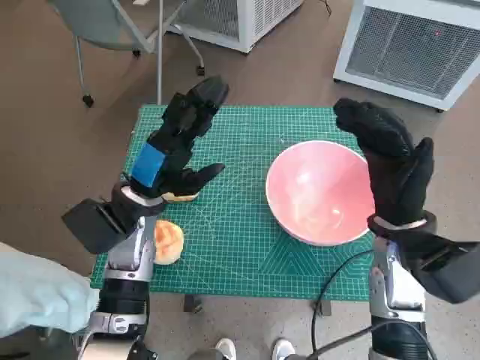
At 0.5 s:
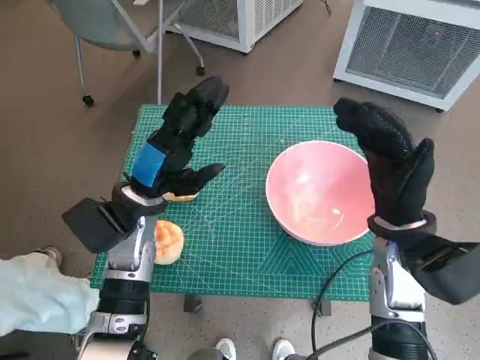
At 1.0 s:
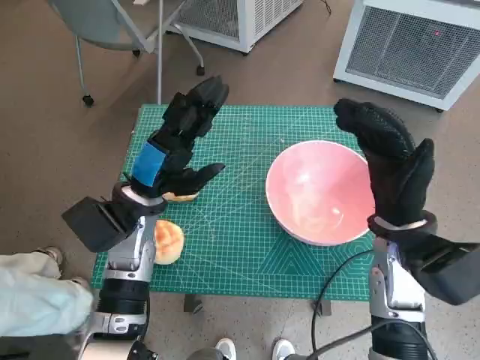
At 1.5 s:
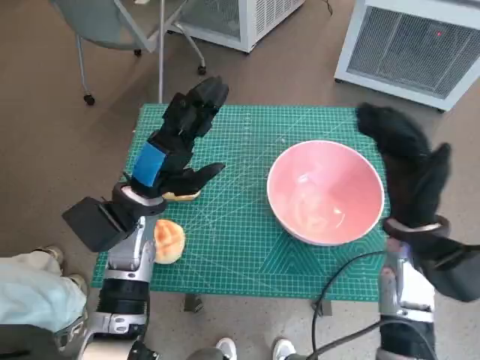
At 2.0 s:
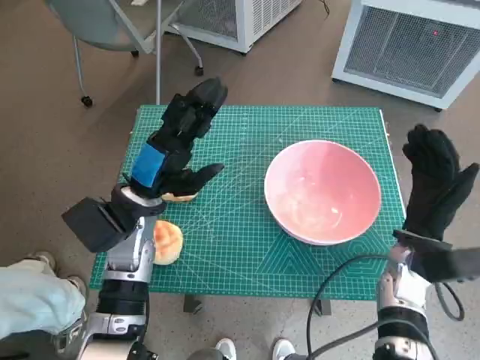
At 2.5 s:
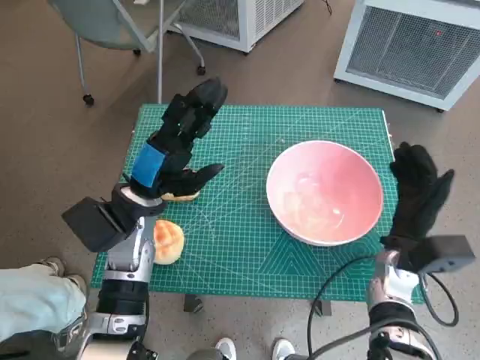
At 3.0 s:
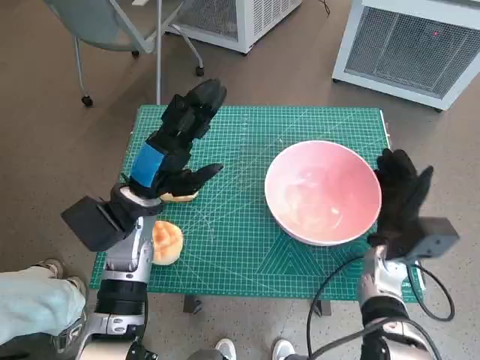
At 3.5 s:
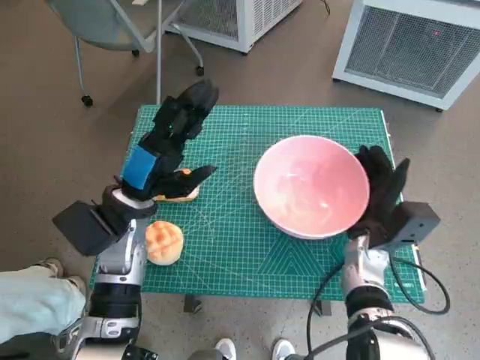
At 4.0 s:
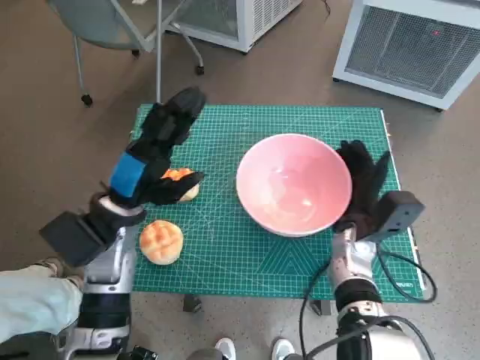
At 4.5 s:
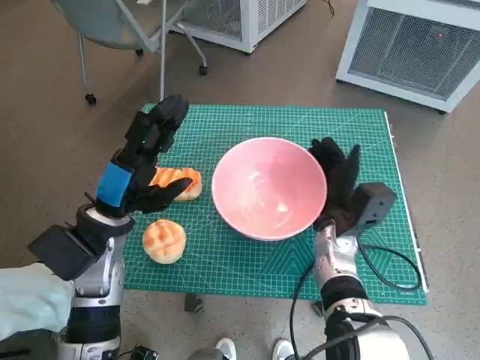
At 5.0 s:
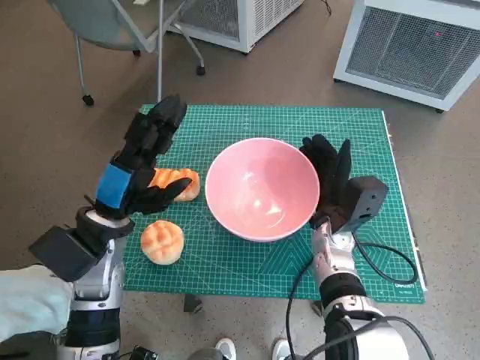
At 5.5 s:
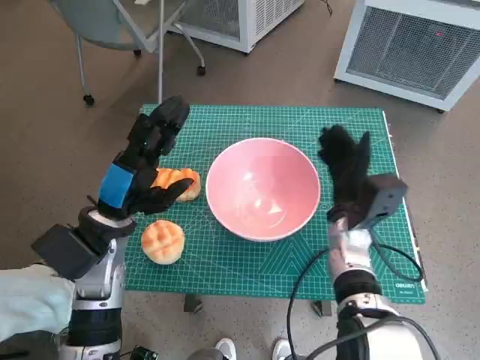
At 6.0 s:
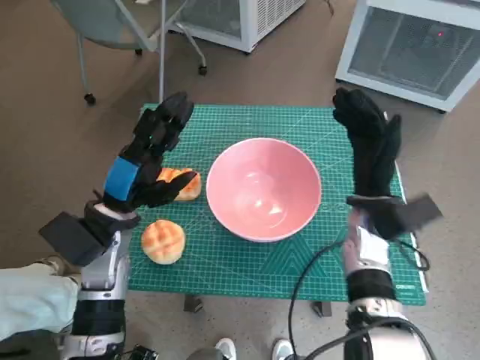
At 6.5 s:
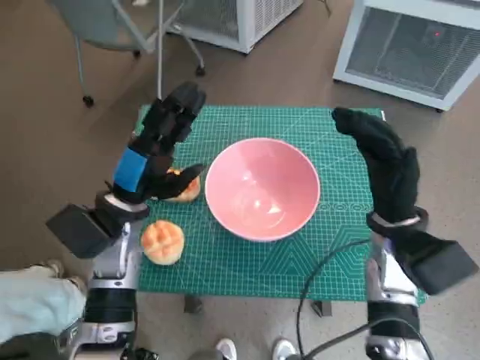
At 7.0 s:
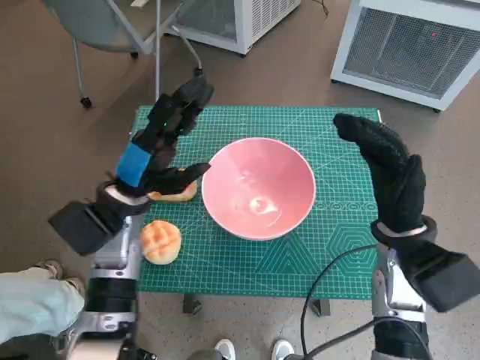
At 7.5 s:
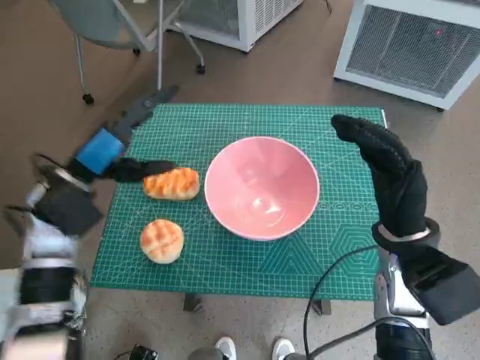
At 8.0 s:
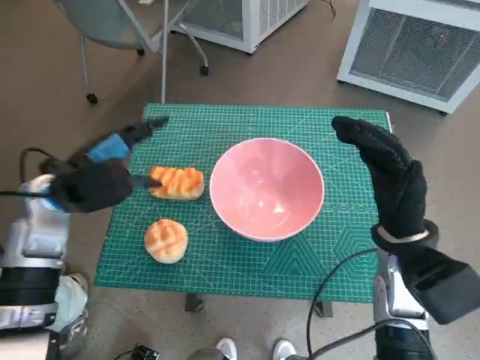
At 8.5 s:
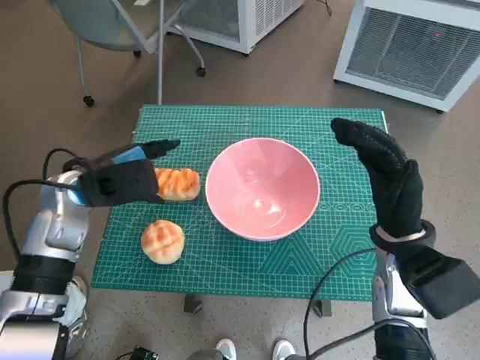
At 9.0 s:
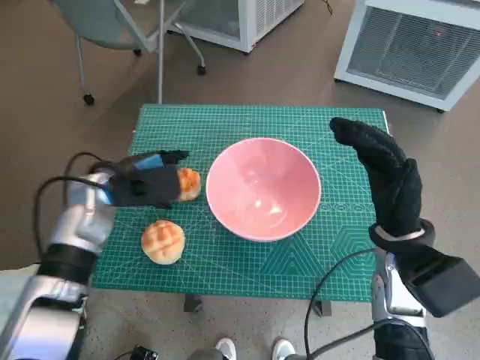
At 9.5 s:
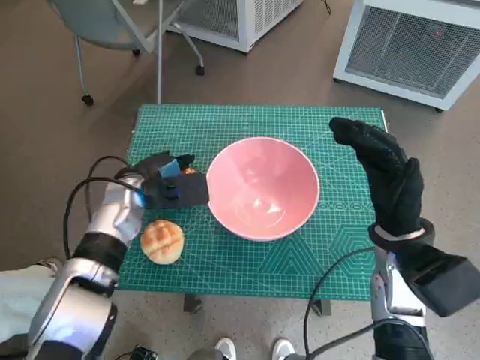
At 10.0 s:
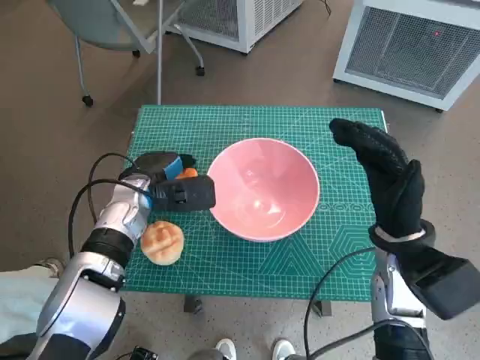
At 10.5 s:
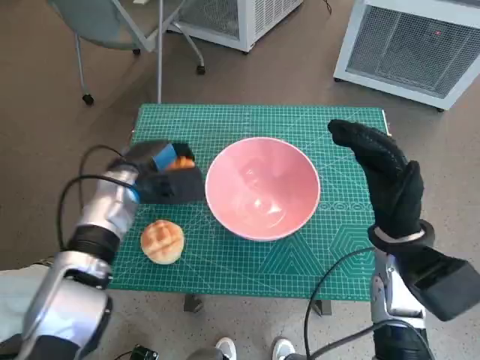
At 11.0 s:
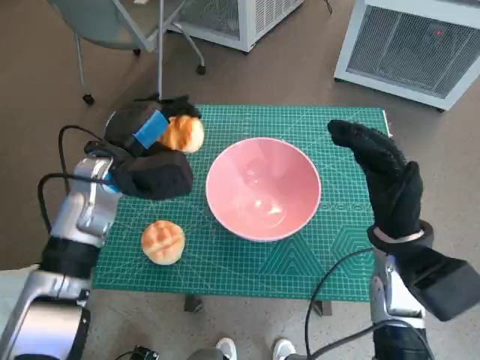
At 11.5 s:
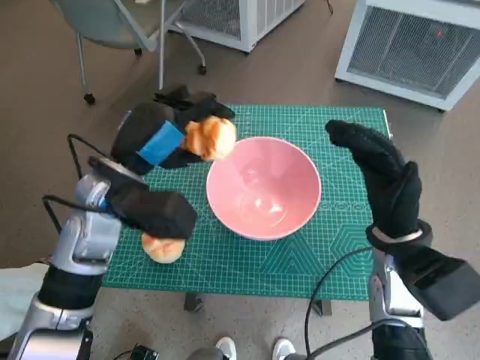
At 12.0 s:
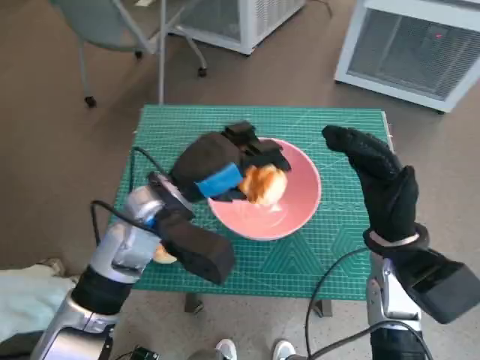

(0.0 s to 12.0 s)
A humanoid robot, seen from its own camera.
Task of the whole recording: Push the bowl into the center of the table and put the bread into the bowl.
Step, 0.0 s - 5.0 s: Move the pink bowl to the center of table with right hand.
Step, 5.5 s - 10.0 s: Grasp the long bread with left hand.
2.0 s - 4.0 s: The right hand shifts roughly 5 cm to the left.
4.0 s - 6.0 s: The right hand is displaced upward by approximately 5 cm.
6.0 s - 8.0 s: The left hand travels to the left and upward by approximately 5 cm, while the right hand moves backward, approximately 5 cm.
8.0 s - 10.0 s: The left hand shifts approximately 10 cm downward and to the right.
10.0 s - 12.0 s: The left hand heads upward, backward and to the right, covering some 10 cm.

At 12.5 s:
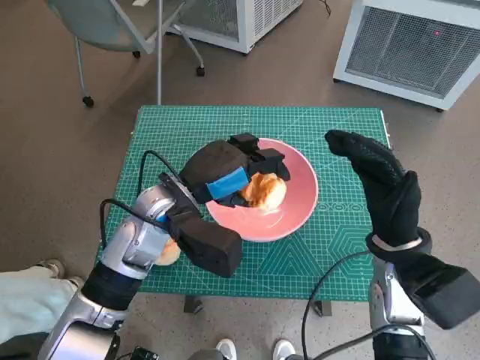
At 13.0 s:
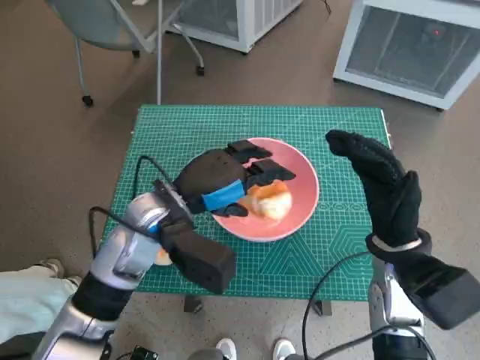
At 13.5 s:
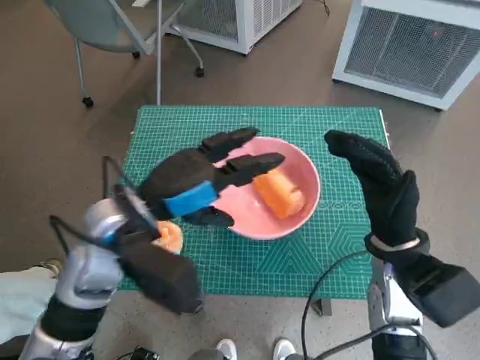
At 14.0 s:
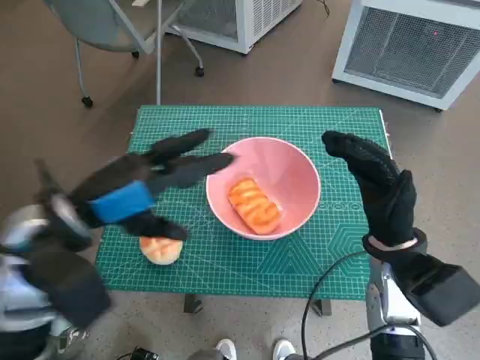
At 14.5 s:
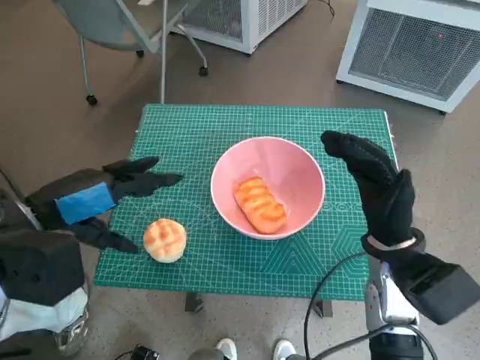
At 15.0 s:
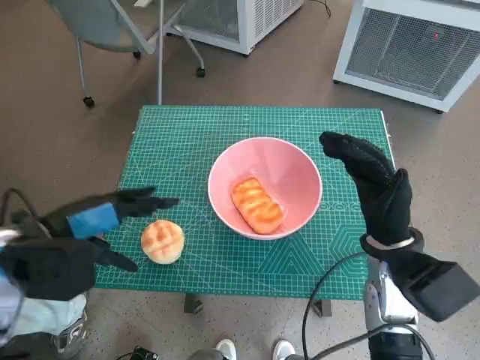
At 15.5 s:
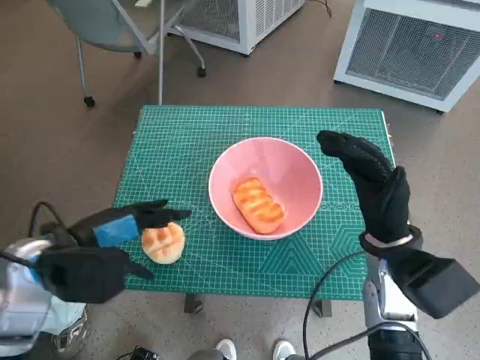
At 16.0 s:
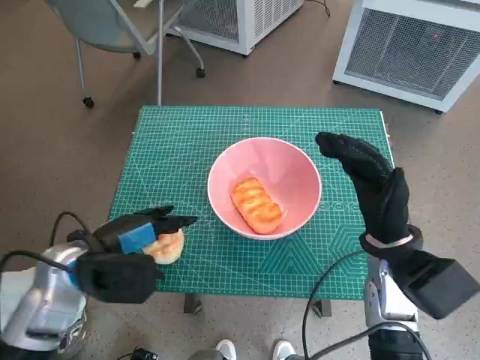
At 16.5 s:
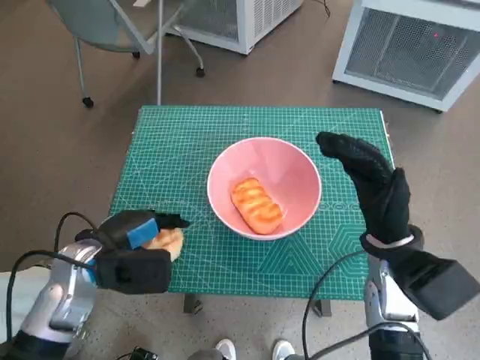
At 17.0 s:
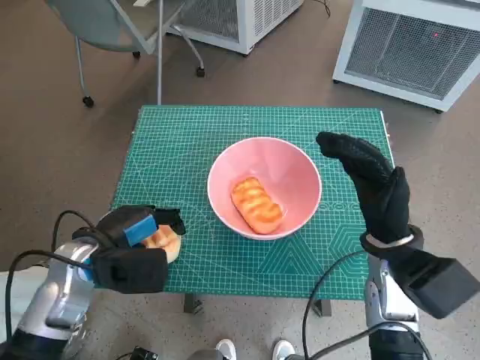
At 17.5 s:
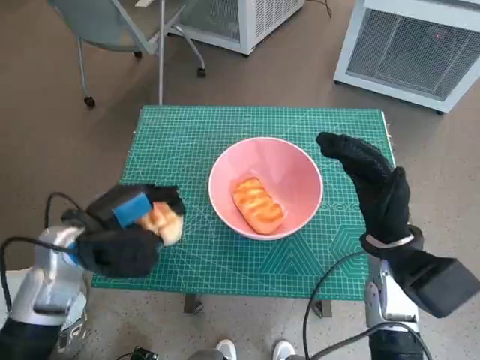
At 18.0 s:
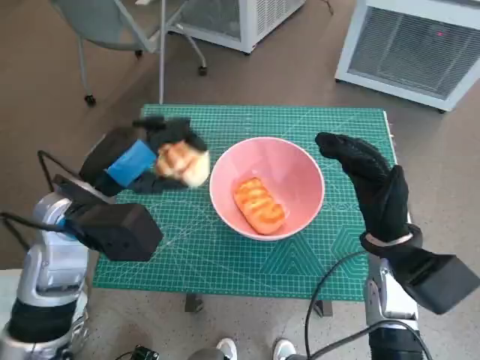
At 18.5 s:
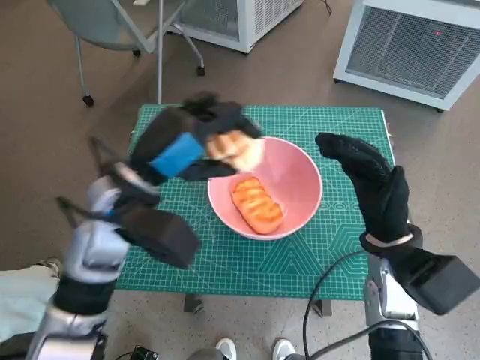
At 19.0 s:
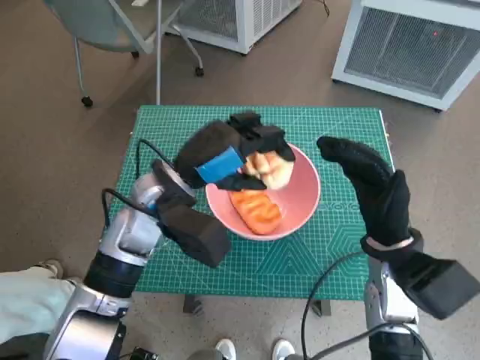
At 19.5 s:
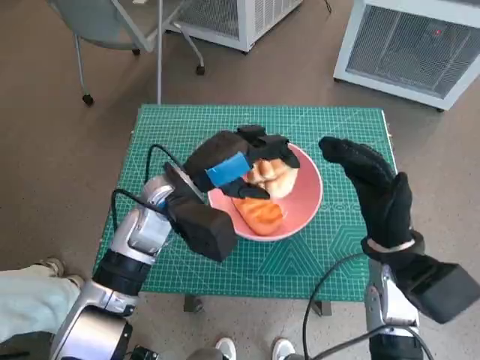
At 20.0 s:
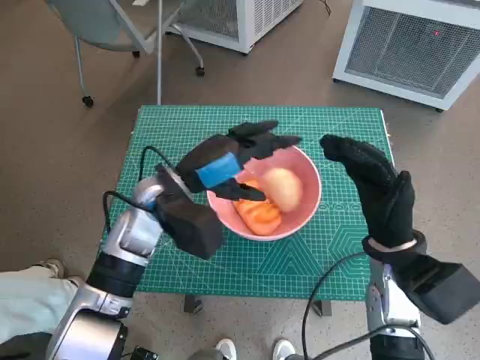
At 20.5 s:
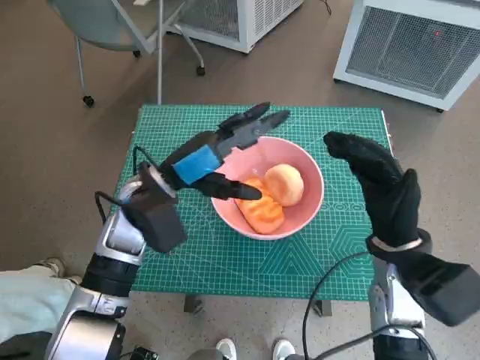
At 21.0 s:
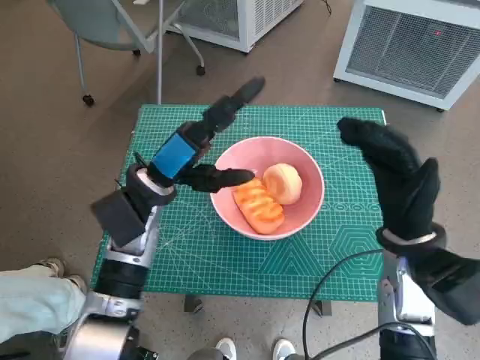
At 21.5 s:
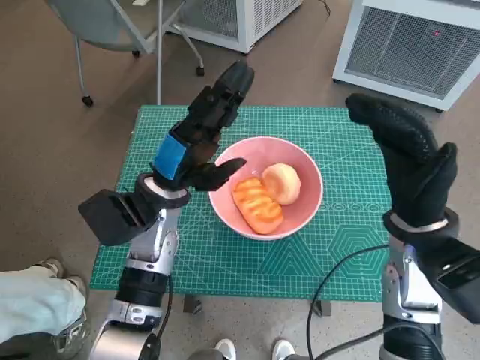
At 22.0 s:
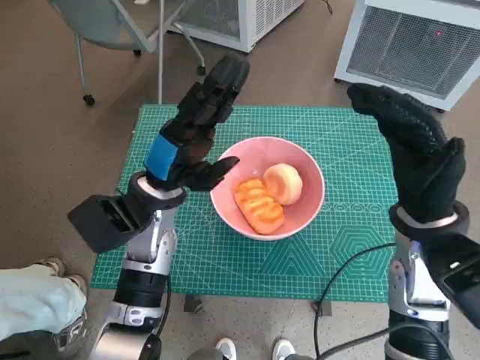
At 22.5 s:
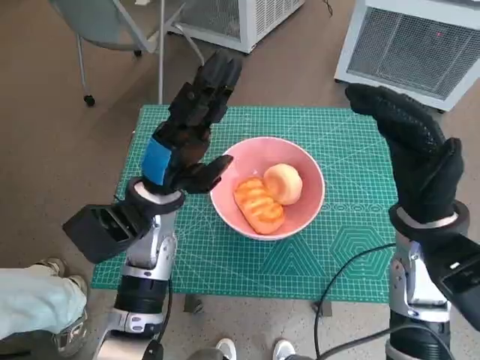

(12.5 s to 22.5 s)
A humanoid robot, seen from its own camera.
Task of the whole recording: Push the bowl into the center of the table and put the bread into the bowl.
Step, 13.5 s - 16.5 s: Grasp the round bread with left hand.
Step, 17.0 s - 19.5 s: Place the round bread in pink bowl with left hand.
12.5 s - 14.5 s: The left hand travels to the left, upward and backward by some 15 cm.
14.5 s - 16.5 s: The left hand heads downward, covering some 10 cm.
16.5 s - 18.5 s: The left hand moves upward and to the right, approximately 10 cm.
18.5 s - 20.5 s: The left hand moves roughly 5 cm.
20.5 s - 22.5 s: The right hand moves upward, approximately 5 cm.

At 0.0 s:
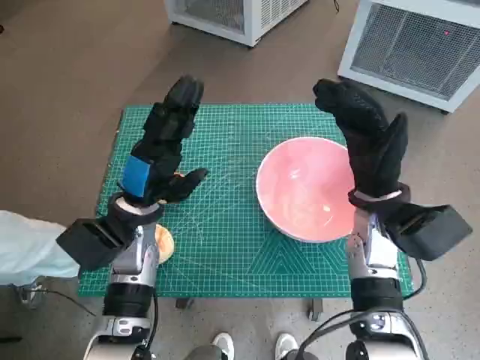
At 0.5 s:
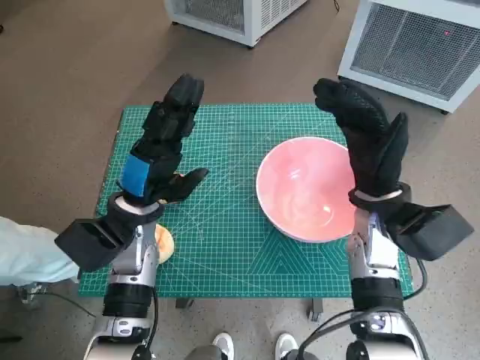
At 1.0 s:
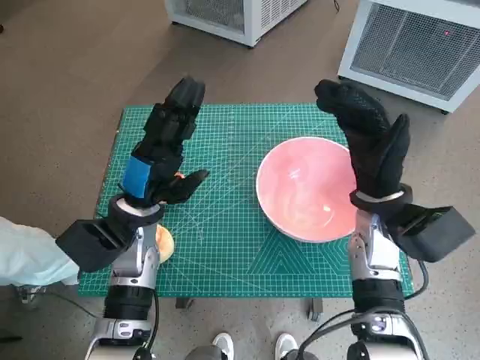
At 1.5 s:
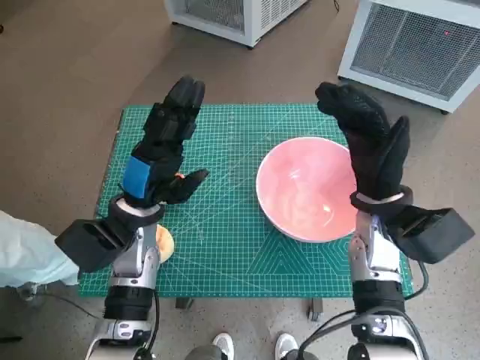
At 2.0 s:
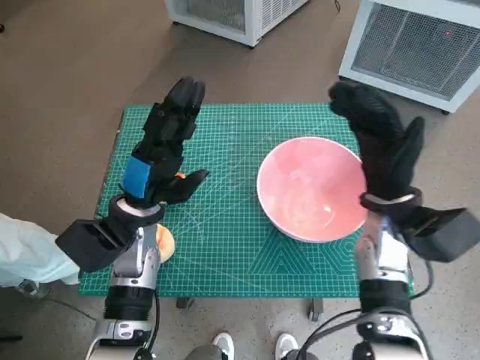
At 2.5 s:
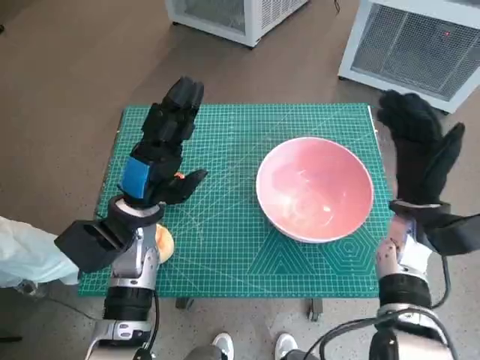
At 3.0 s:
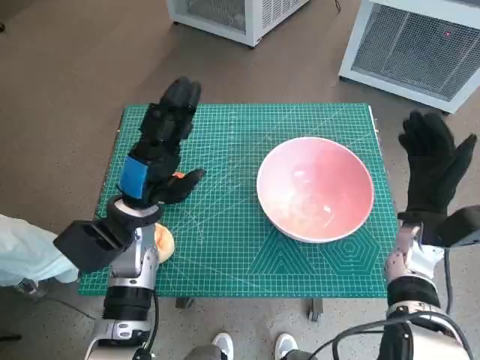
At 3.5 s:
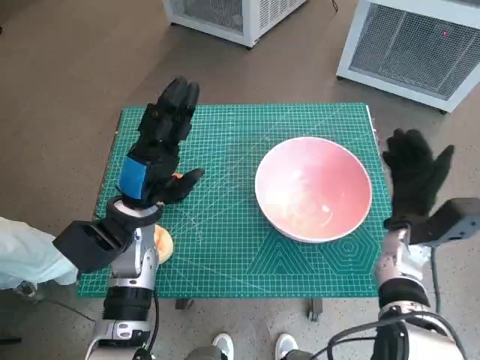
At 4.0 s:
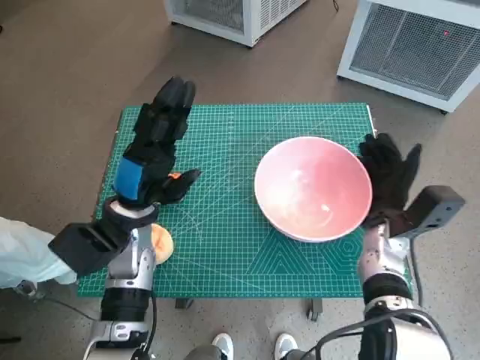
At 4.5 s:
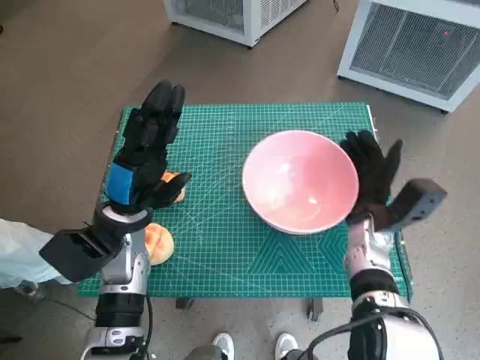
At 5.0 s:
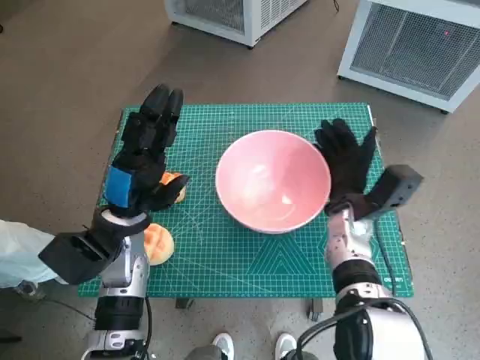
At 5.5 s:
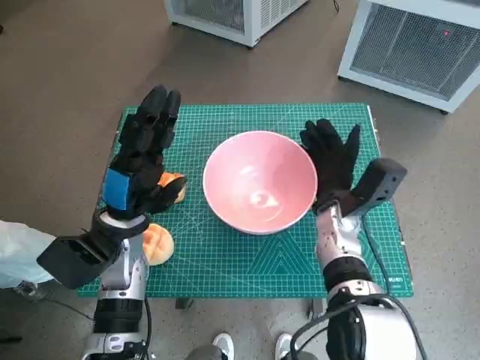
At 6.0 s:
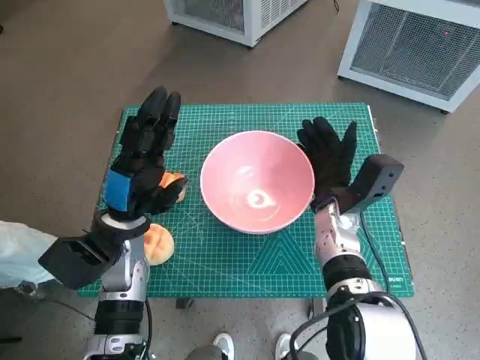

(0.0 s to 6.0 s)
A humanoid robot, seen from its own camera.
Task of the whole recording: Push the bowl into the center of the table and put the bread into the bowl.
2.0 s - 4.0 s: The right hand is displaced downward by approximately 10 cm.
4.0 s - 6.0 s: The right hand moves to the left, some 10 cm.
